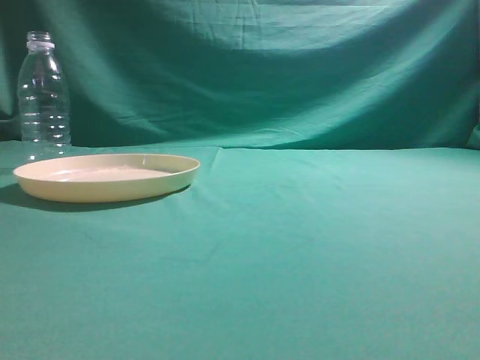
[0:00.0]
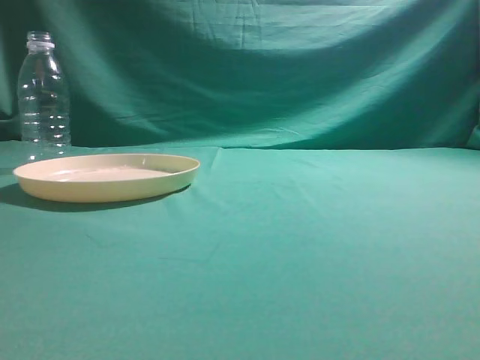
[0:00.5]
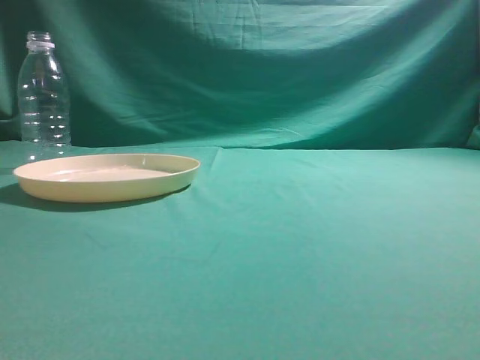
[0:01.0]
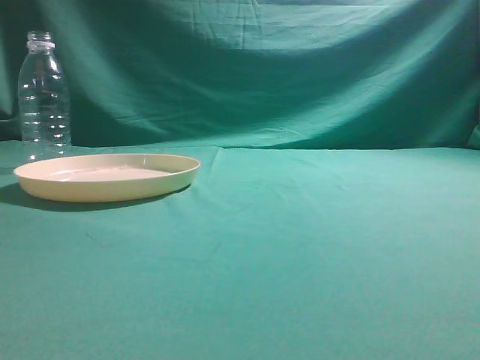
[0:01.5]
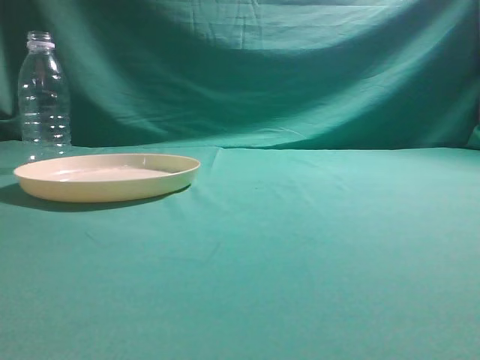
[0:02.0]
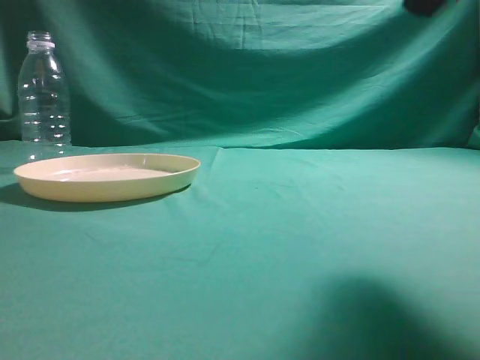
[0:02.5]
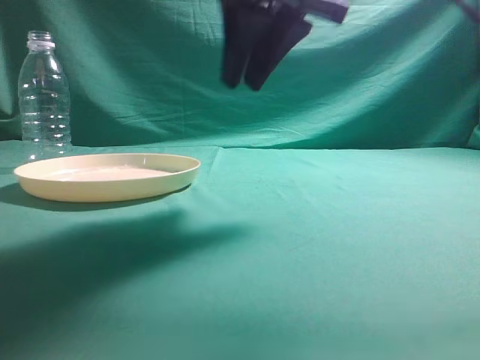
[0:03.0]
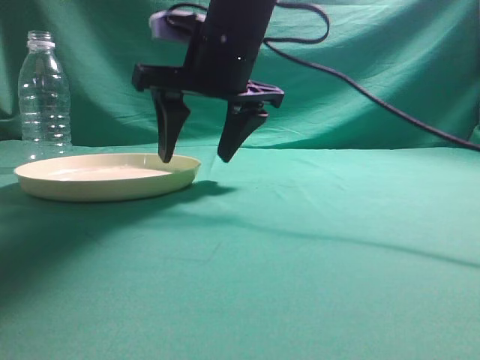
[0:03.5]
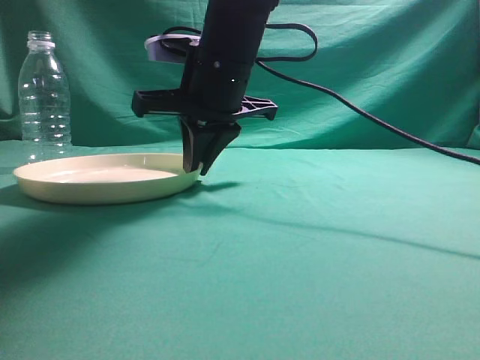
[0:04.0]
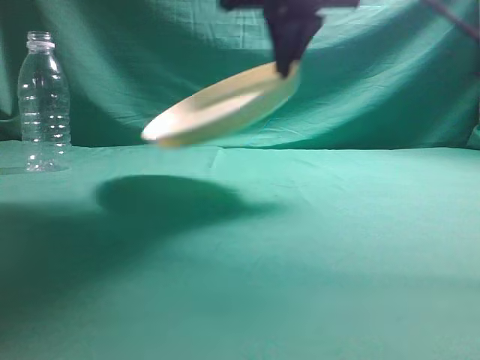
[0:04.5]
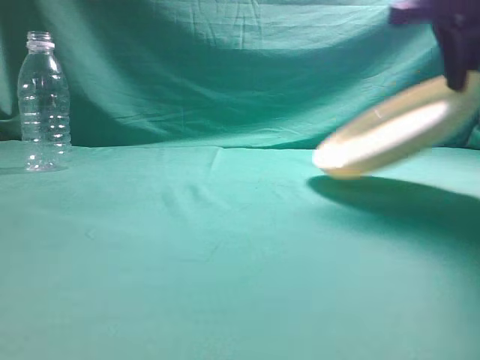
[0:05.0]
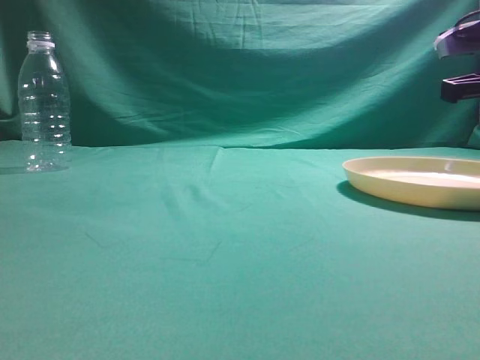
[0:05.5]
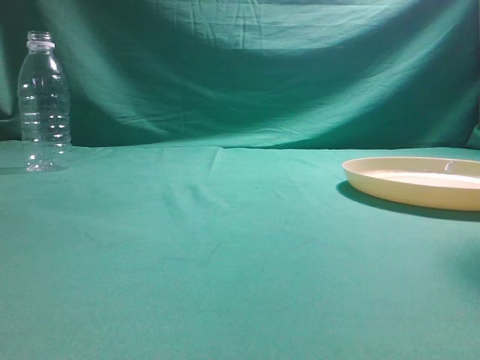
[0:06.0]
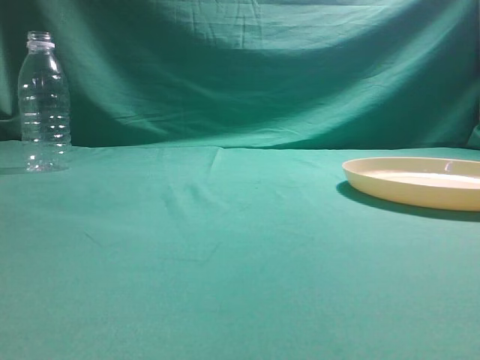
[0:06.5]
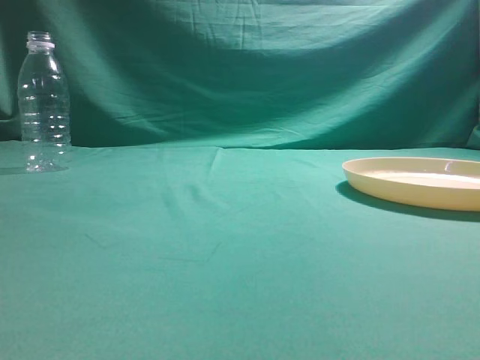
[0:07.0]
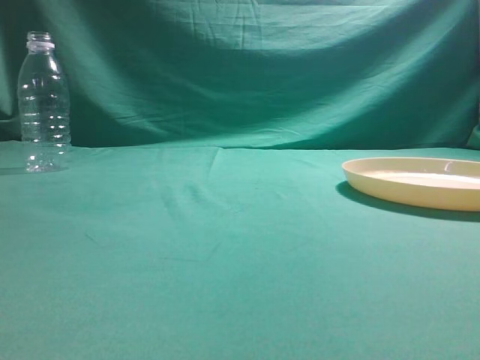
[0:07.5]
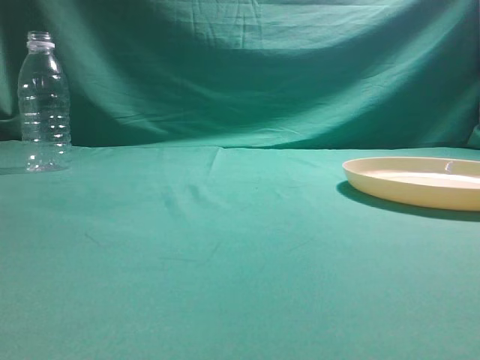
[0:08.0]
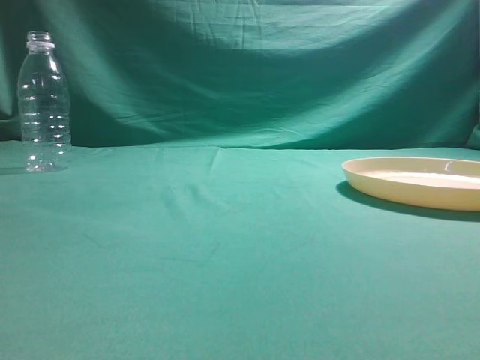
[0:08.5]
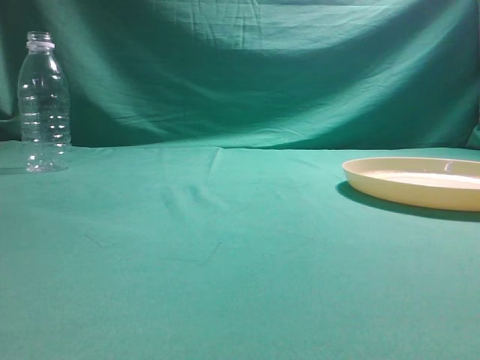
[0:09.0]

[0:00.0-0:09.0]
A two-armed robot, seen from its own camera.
Step, 0:00.0 to 0:04.0: Pick the container that can hold fruits.
Step, 0:04.5 to 0:05.5: Move the picked object to the right side of the table.
0:02.0 to 0:04.5: The right gripper goes roughly 35 cm forward and to the left, and opens and closes again.
0:04.5 to 0:07.0: The right gripper moves backward, to the right and upward, roughly 40 cm, and opens, then closes once more.
